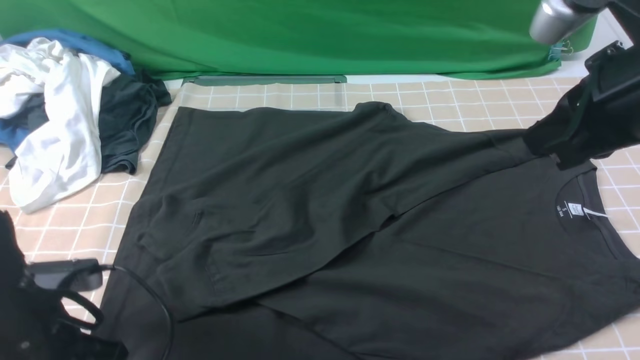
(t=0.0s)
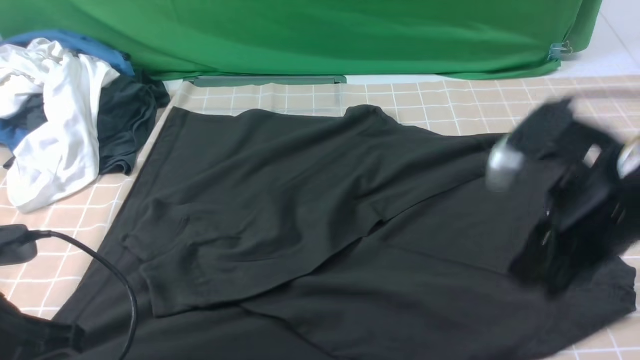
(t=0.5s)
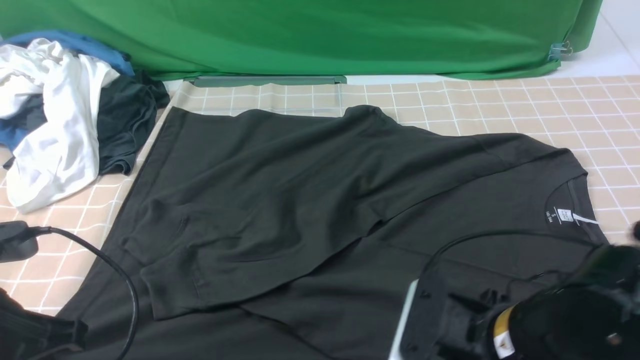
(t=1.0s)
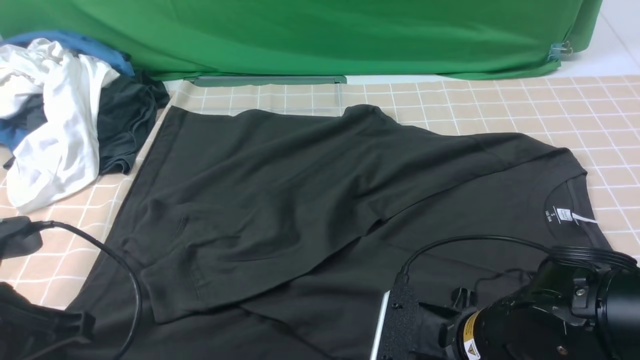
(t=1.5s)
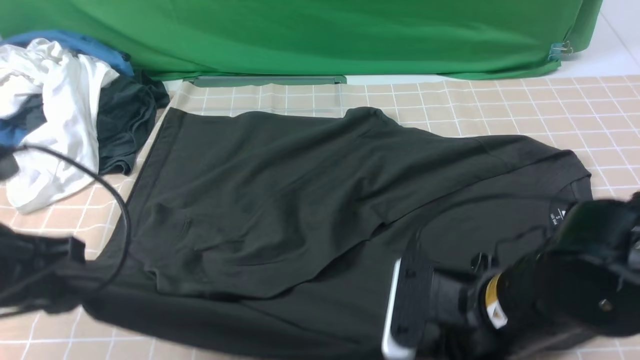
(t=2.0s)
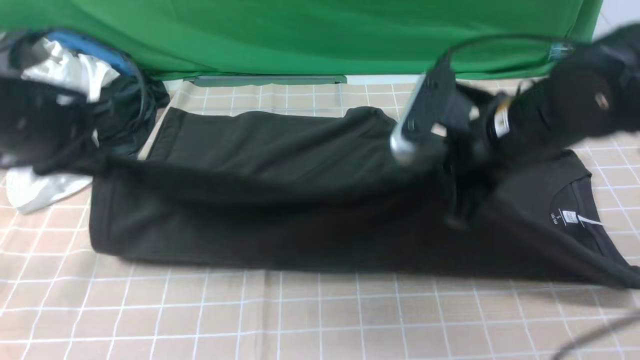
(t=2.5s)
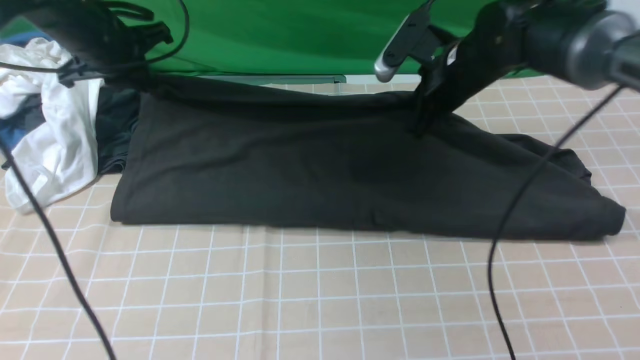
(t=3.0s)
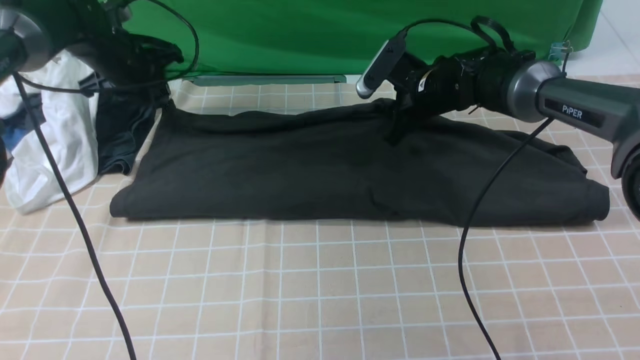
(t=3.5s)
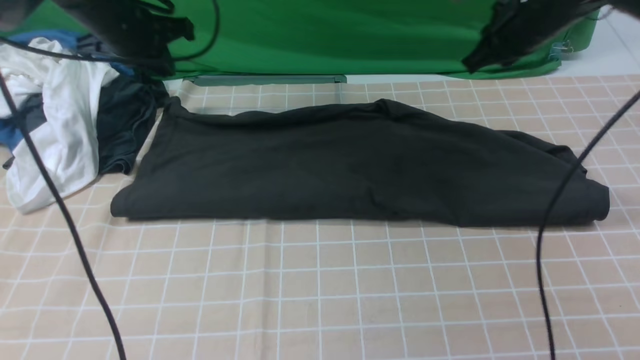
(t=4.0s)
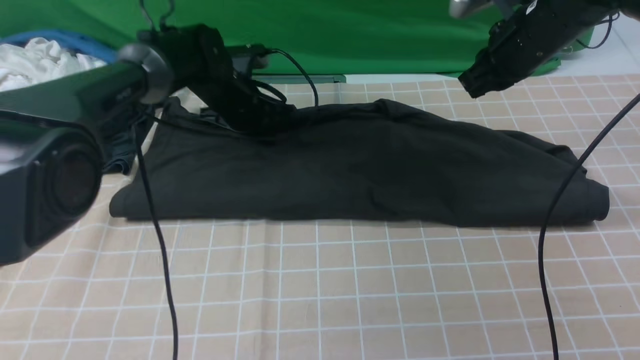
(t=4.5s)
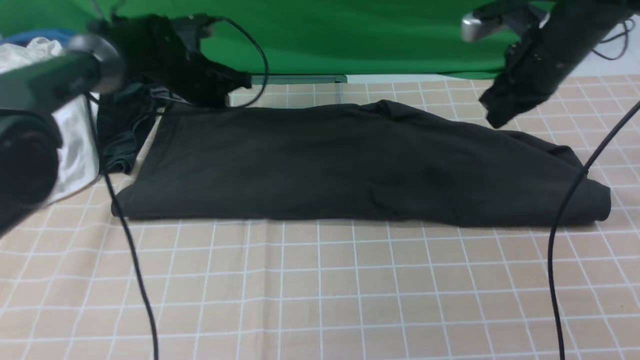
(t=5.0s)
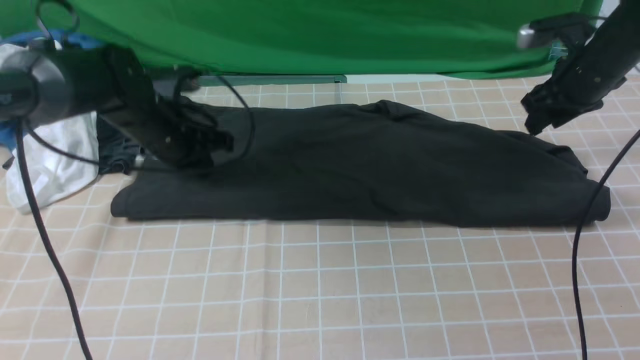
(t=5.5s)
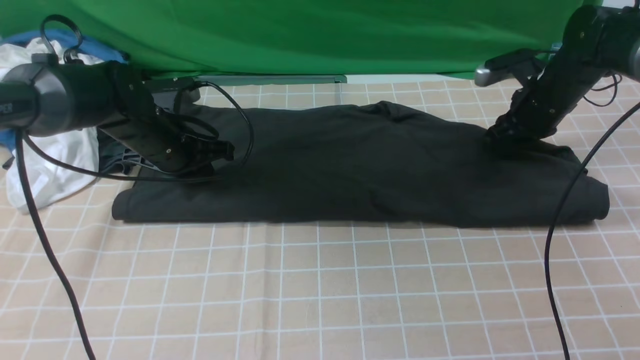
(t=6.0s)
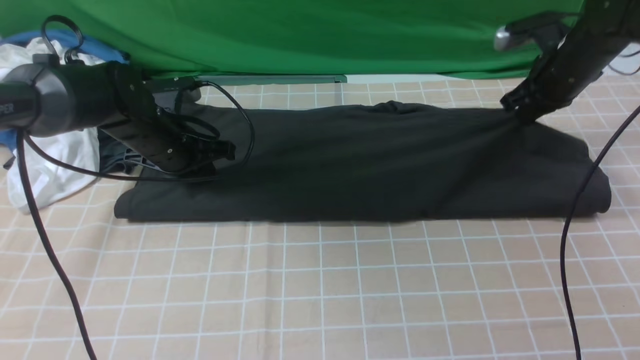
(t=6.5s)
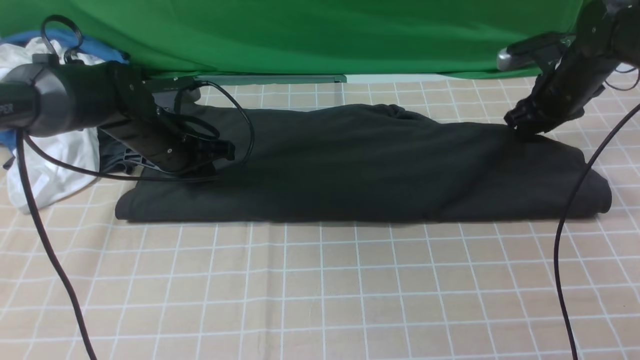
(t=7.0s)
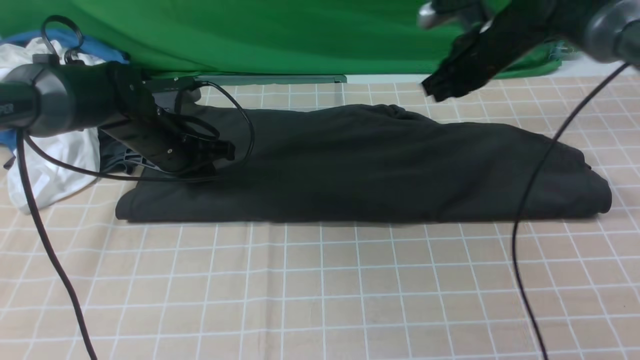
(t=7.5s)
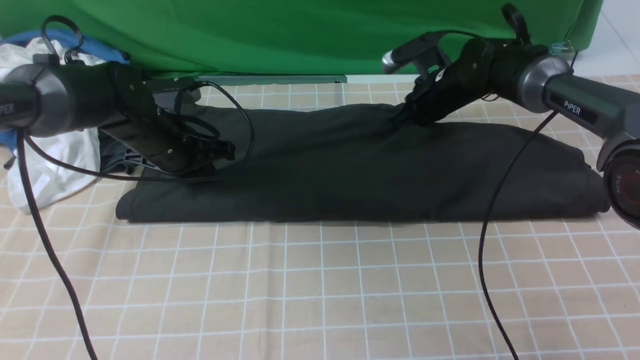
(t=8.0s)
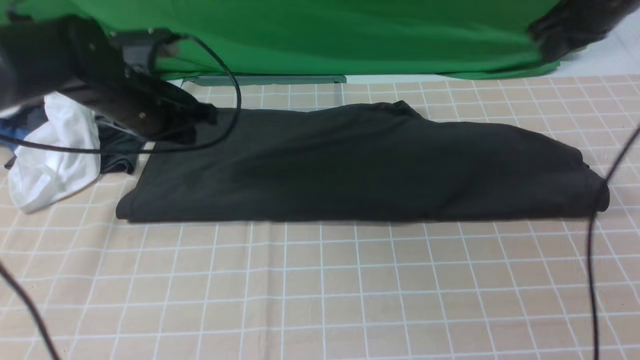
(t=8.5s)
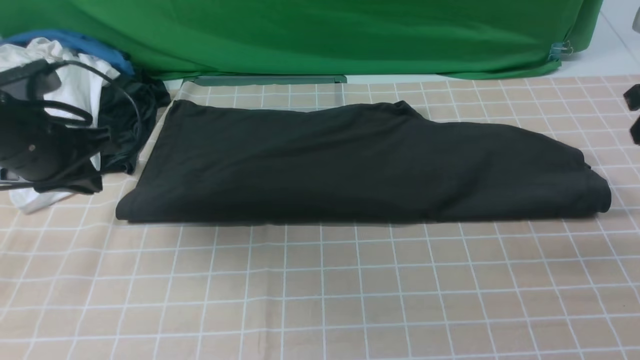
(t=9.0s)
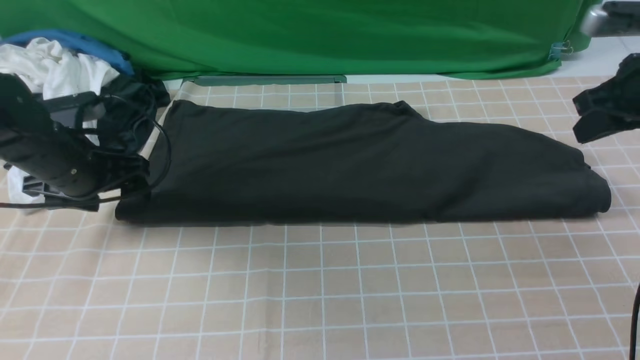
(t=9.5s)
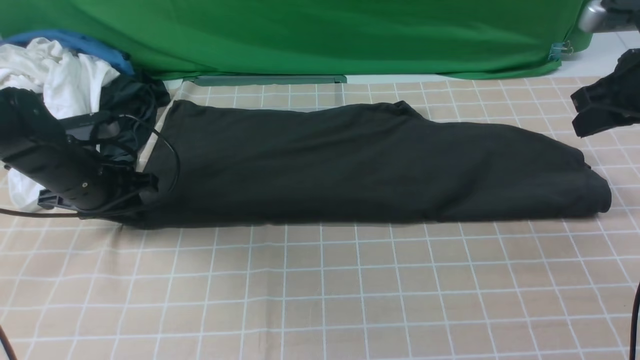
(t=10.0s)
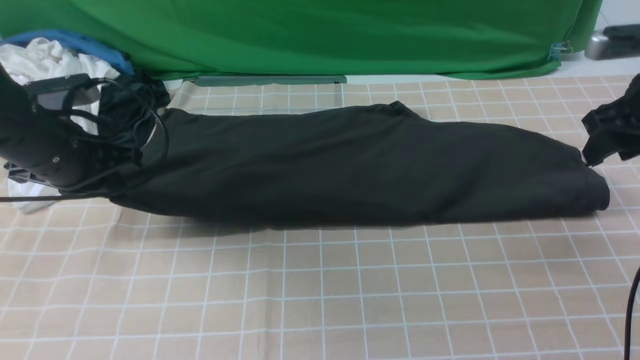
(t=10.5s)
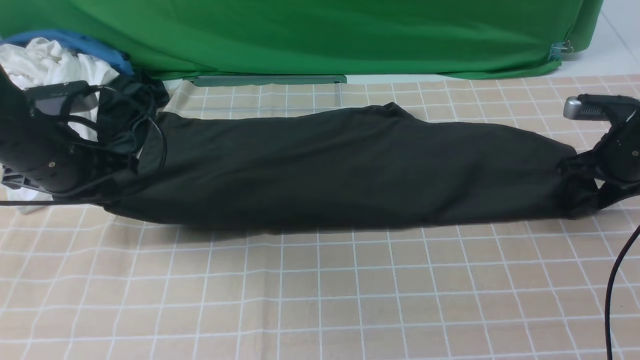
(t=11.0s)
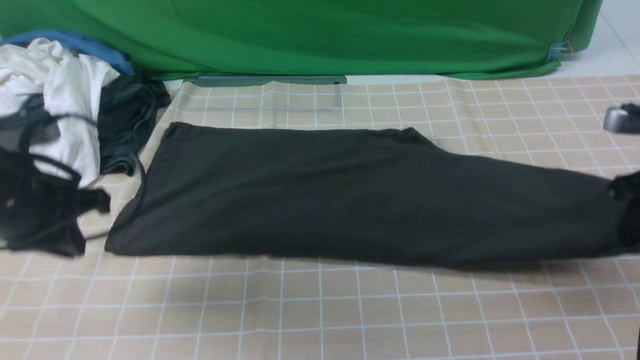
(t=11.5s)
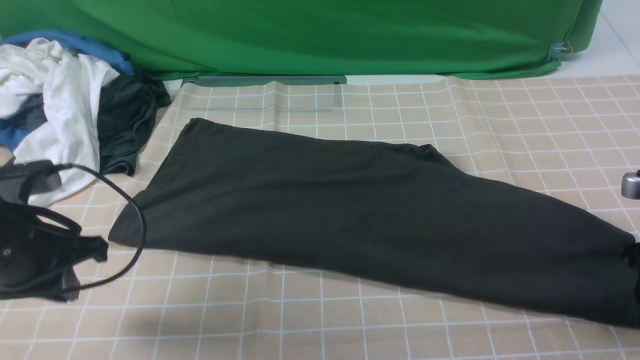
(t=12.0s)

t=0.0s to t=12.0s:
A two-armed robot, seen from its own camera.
Step, t=2.0s to t=3.5s: use both arms to drag the lower edge of the fabric forward and fold it over the upper edge.
t=0.0s to t=2.0s: The left gripper travels upward by some 10 cm. The right gripper is displaced downward and to the left by about 20 cm, and opens, then closes again.
t=2.0s to t=4.0s: Both grippers move forward, roughly 30 cm.
t=4.0s to t=6.0s: The left gripper travels downward and backward by about 10 cm. The right gripper moves downward and to the right, roughly 10 cm.
t=6.0s to t=8.0s: The right gripper heads to the left, covering approximately 10 cm.
t=8.0s to t=10.0s: The left gripper is displaced to the left and backward by approximately 10 cm, and opens. Meanwhile the right gripper moves backward, to the right and upward, about 25 cm.
t=10.0s to t=12.0s: The right gripper shifts some 15 cm backward and downward, and opens its fingers; the left gripper goes approximately 15 cm backward and upward.

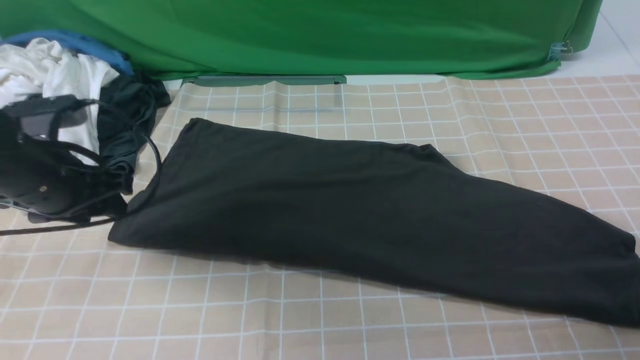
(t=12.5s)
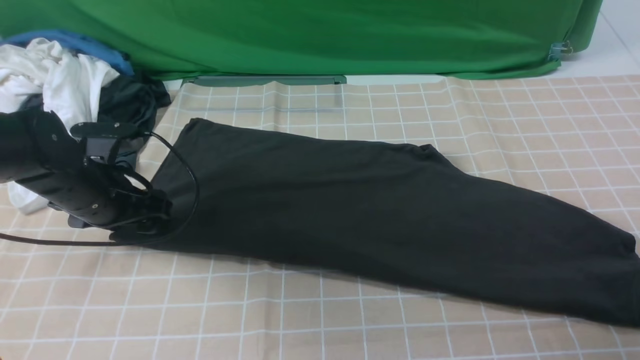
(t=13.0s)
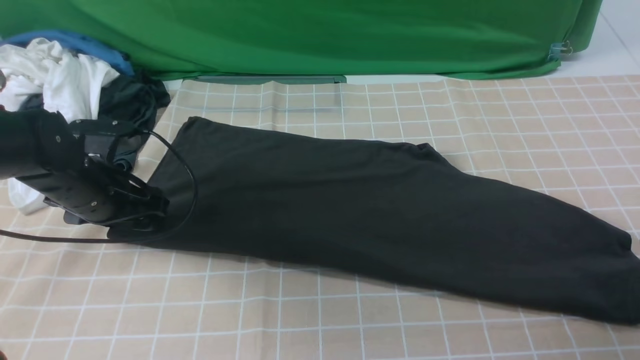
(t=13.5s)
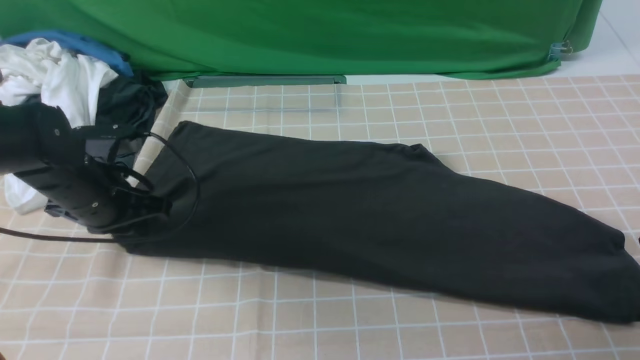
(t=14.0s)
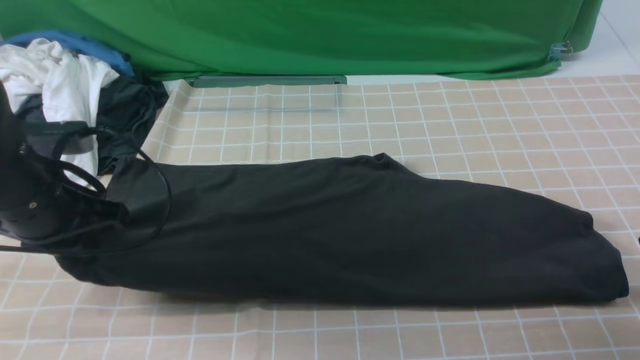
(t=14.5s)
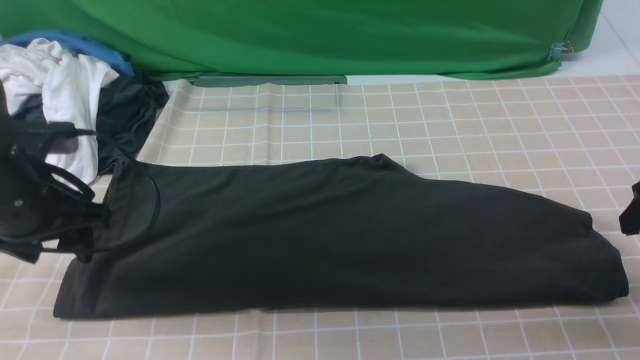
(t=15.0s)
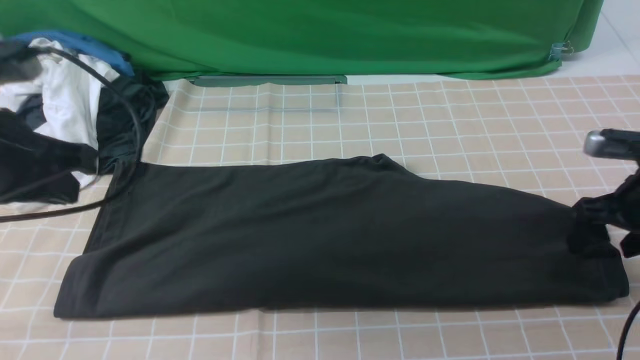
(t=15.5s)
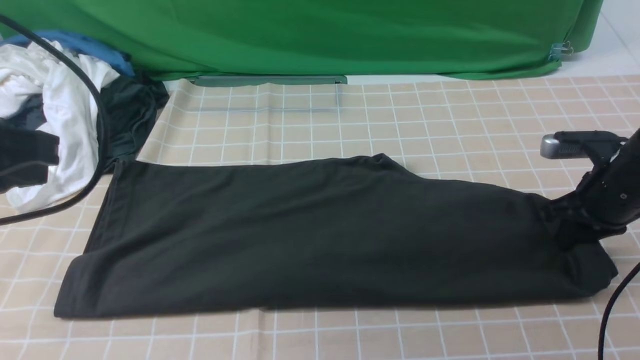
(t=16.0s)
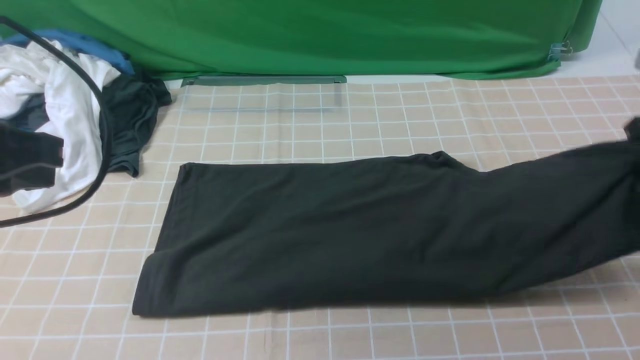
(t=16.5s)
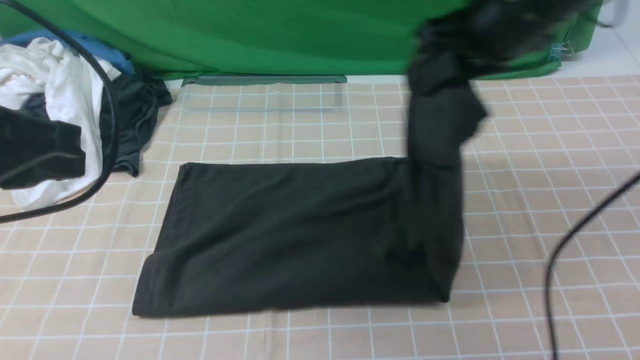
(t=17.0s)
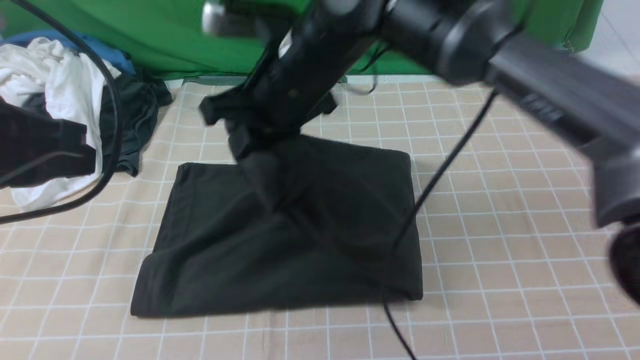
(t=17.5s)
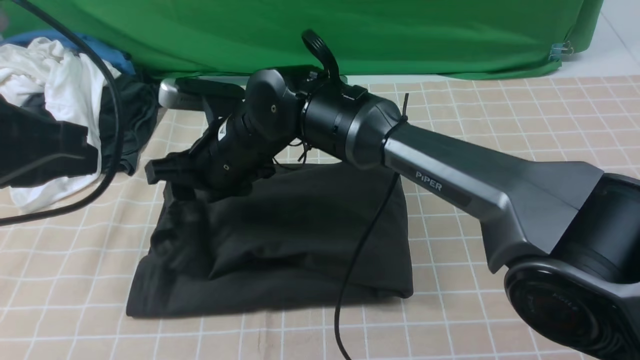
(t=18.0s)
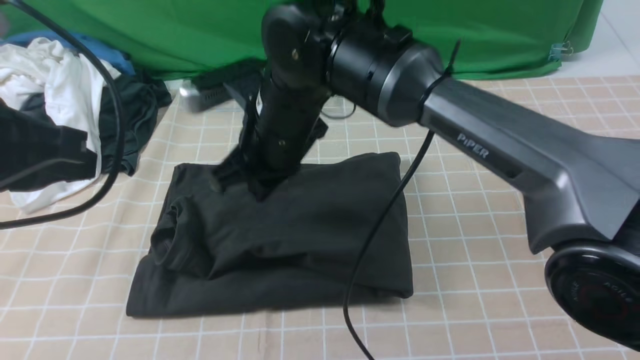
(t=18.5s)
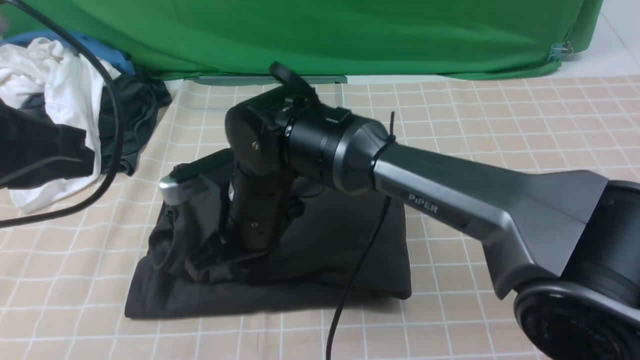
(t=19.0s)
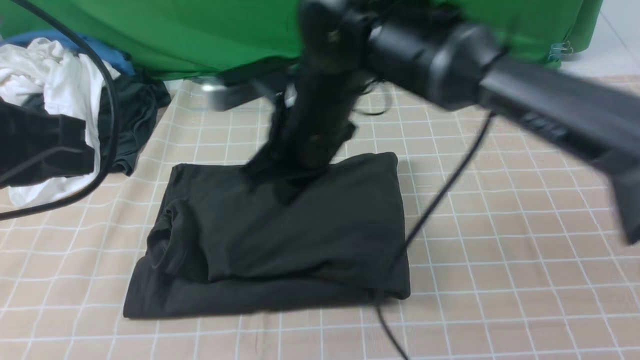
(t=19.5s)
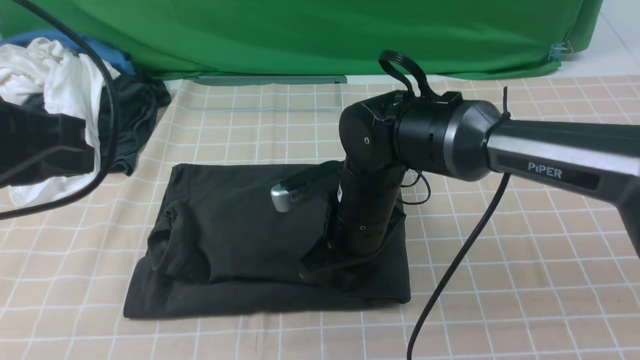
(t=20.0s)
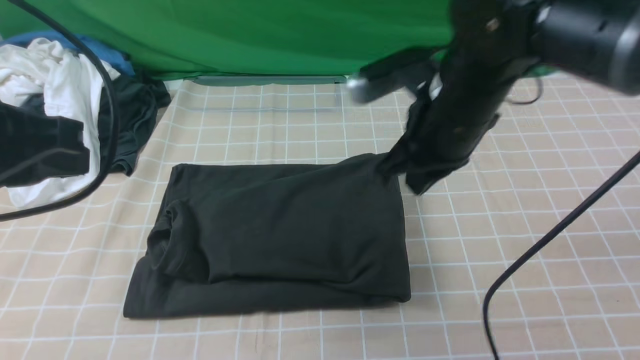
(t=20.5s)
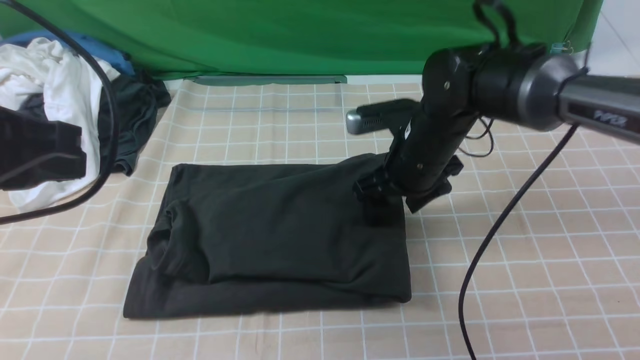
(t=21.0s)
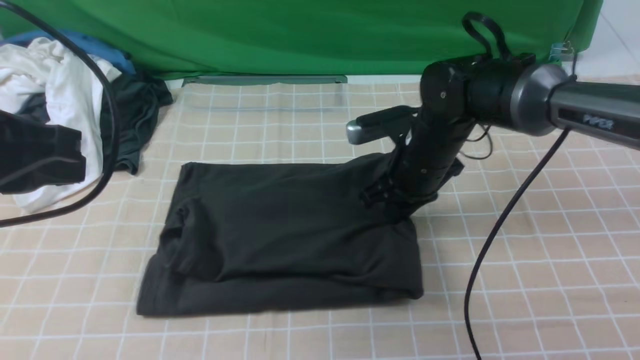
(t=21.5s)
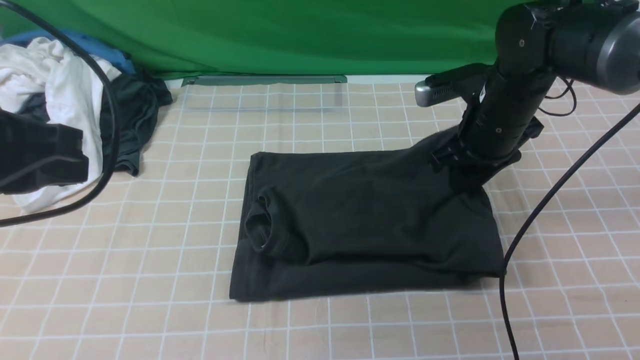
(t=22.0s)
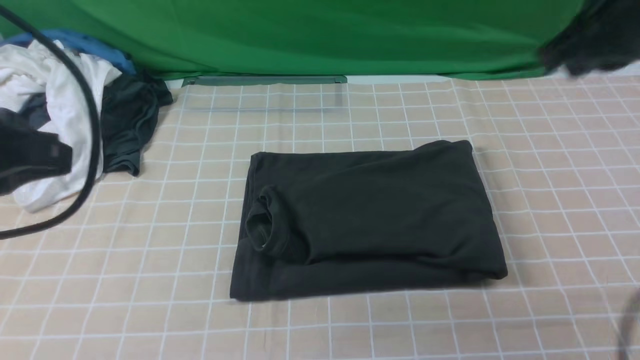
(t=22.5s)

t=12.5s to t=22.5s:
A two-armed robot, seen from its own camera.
Step, t=12.5s to t=15.5s: use the right arm to clamp the right edge of the fabric.
Step, t=16.0s to t=18.0s: use the right arm to drag the right edge of the fabric to the left and folds it over the left edge.
t=12.5s to t=14.5s: The left gripper reaches about 5 cm downward, then returns, and closes up.
t=14.5s to t=16.5s: The right gripper goes about 10 cm forward, moves some 5 cm downward and comes back, and closes. The left gripper moves upward and backward, approximately 15 cm, and opens and closes again.
t=16.5s to t=18.5s: The right gripper heads to the left, covering roughly 40 cm, and opens, then closes once more.
t=18.5s to t=20.5s: The right gripper shifts some 15 cm to the right.
t=20.5s to t=22.5s: The right gripper heads upward and to the right, covering approximately 20 cm, and opens and closes again.
